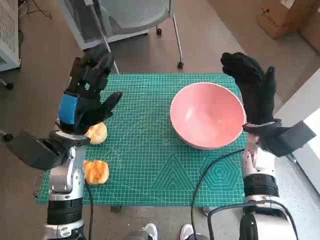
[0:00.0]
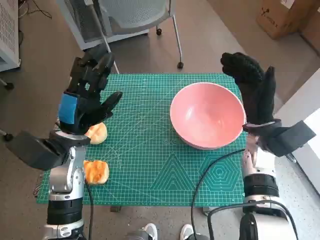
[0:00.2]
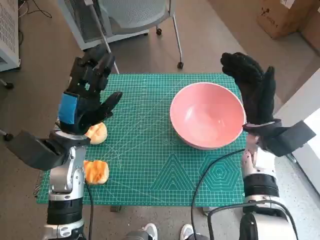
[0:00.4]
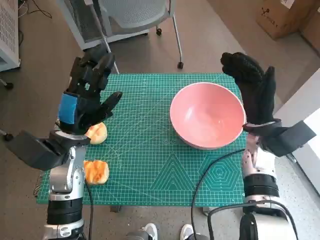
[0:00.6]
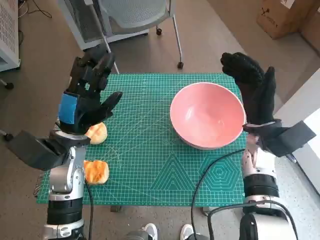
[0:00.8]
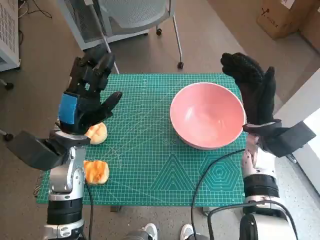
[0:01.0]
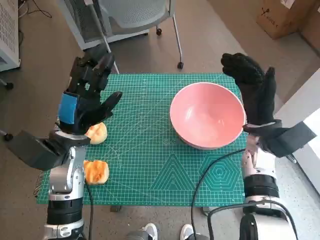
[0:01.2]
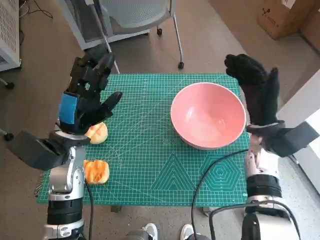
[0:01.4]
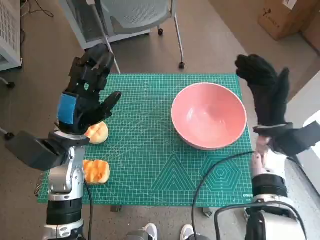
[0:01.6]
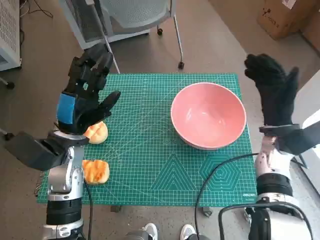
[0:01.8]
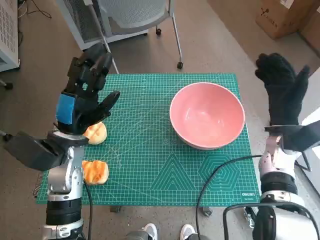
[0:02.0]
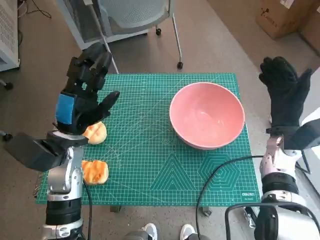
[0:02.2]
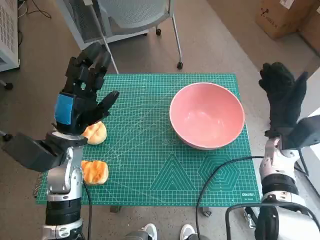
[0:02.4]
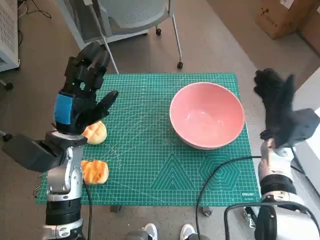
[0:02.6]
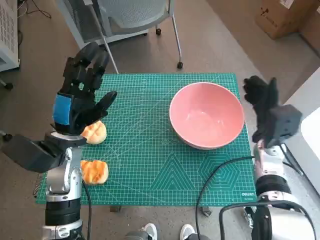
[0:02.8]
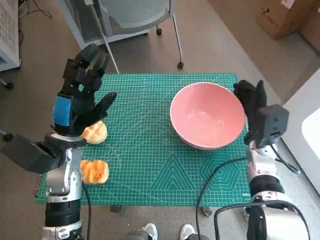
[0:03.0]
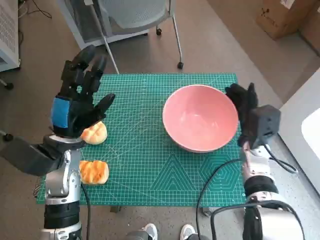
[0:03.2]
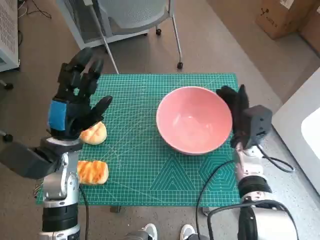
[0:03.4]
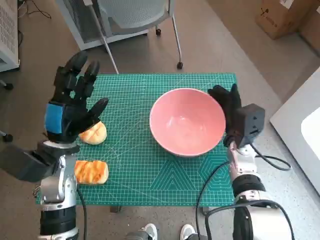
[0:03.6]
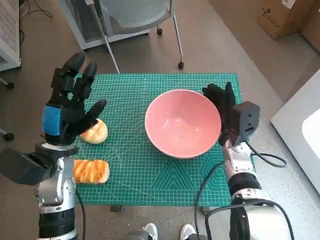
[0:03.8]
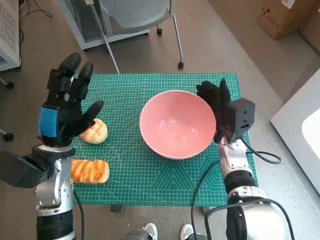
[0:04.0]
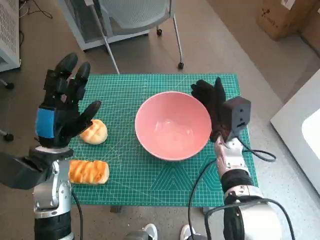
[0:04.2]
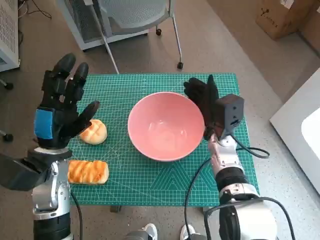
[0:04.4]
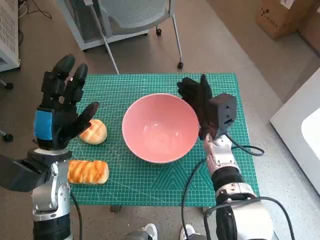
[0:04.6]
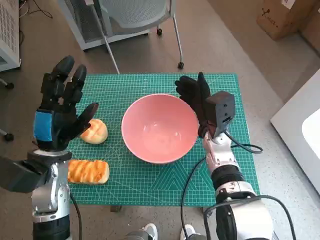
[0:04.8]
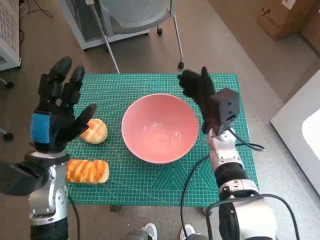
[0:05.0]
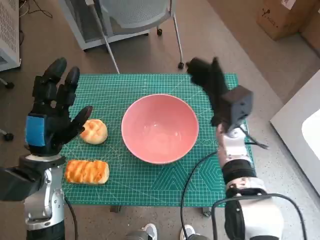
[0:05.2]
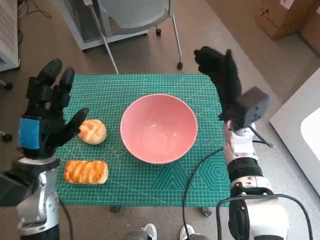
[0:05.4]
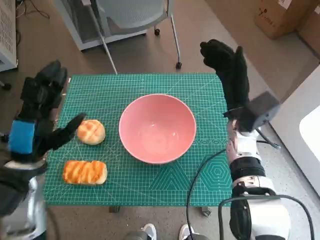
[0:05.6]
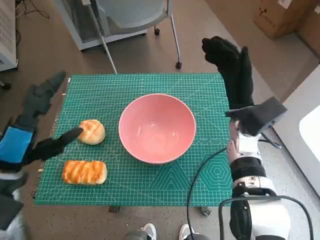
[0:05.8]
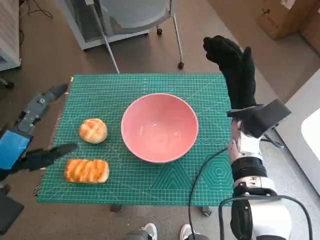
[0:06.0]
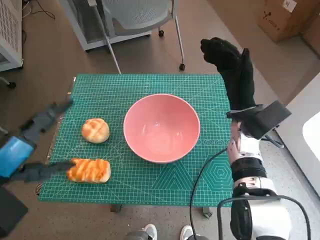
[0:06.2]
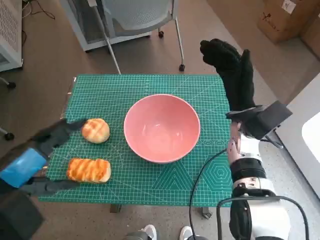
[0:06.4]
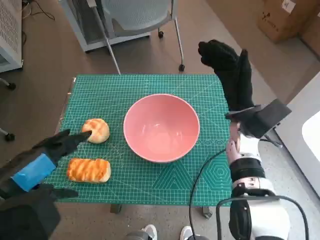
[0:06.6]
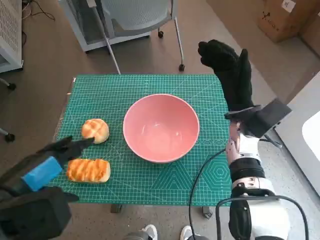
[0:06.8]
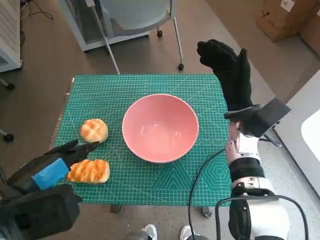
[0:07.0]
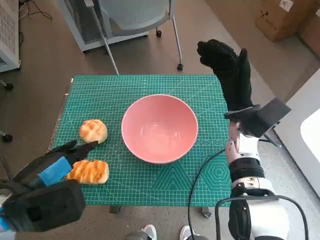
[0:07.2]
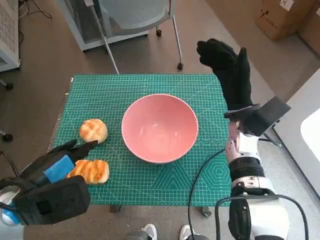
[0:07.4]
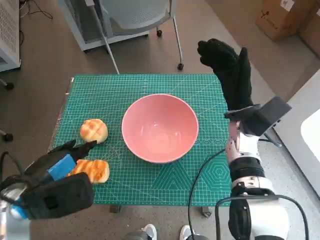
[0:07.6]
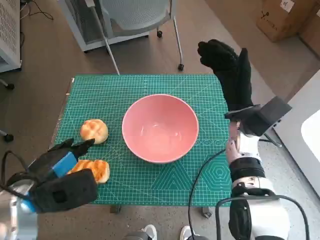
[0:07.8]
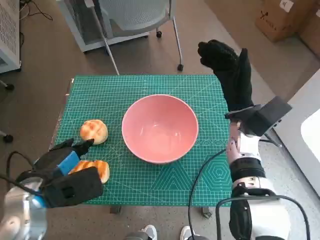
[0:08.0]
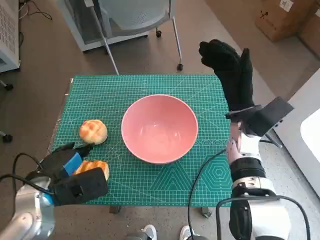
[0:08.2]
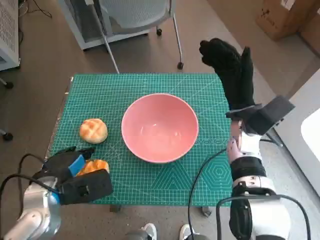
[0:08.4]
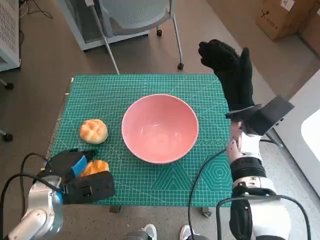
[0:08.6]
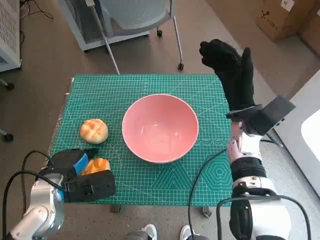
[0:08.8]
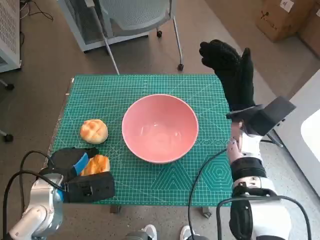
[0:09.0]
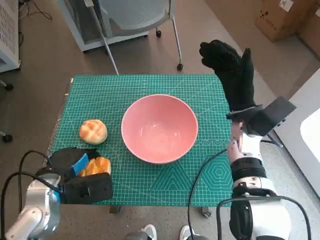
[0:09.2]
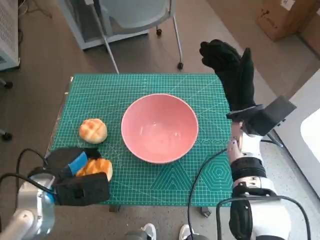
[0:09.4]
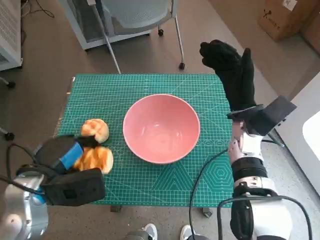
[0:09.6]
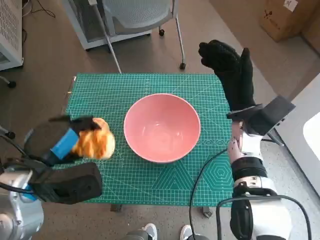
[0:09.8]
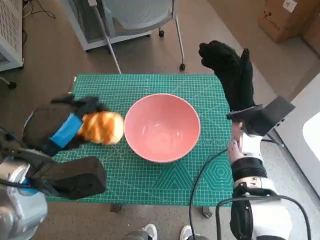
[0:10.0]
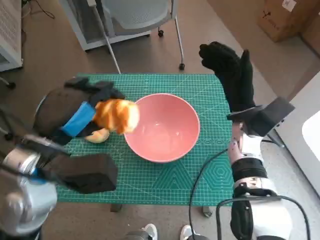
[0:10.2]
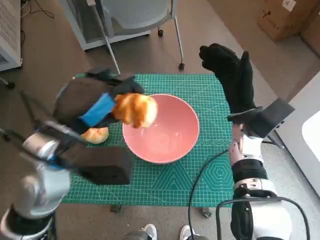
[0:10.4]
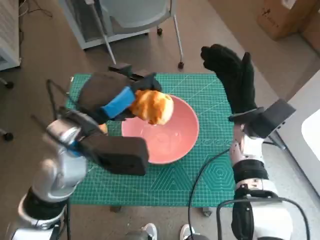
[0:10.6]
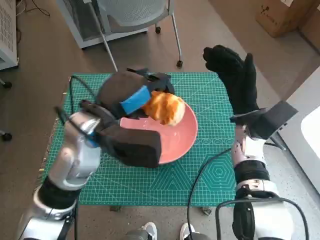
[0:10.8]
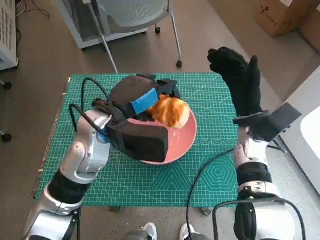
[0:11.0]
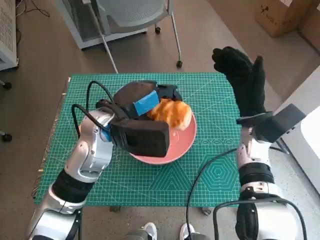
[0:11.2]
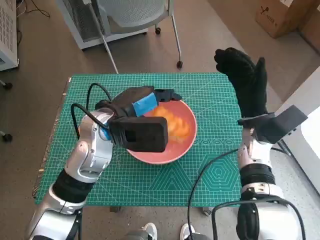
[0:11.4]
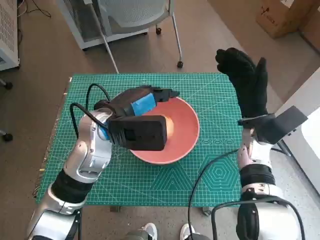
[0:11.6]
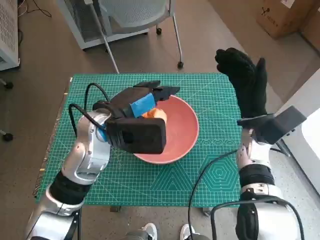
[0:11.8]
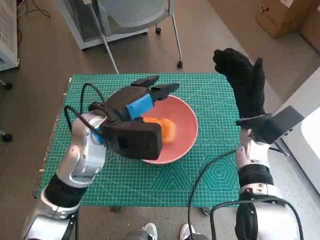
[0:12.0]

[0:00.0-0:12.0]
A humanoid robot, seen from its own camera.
Step, 0:00.0 to 0:04.8: Move the pink bowl to the center of table with right hand.
Step, 0:05.0 to 0:09.0: Grasp the long bread with left hand.
Step, 0:09.2 to 0:11.8: Place the long bread in pink bowl with left hand.
0:03.0 to 0:04.4: The right hand heads to the left, covering about 10 cm.
0:04.4 to 0:06.0: The left hand goes some 10 cm backward and upward; the right hand travels upward by about 5 cm.
0:07.6 to 0:09.0: The left hand heads downward, covering some 5 cm.
0:09.0 to 0:10.4: The left hand shifts some 15 cm upward and to the right.
0:10.4 to 0:12.0: The left hand moves forward, approximately 5 cm.

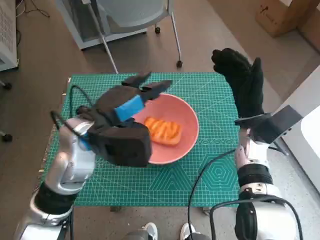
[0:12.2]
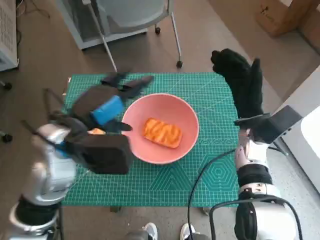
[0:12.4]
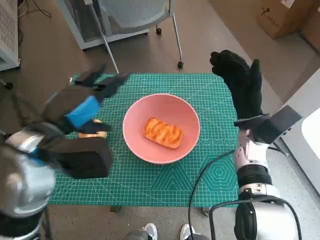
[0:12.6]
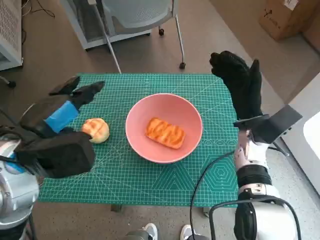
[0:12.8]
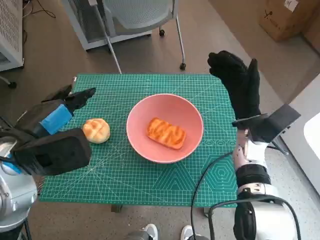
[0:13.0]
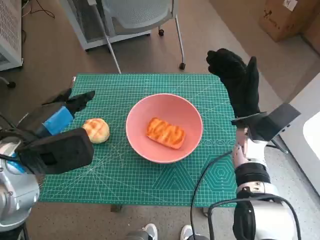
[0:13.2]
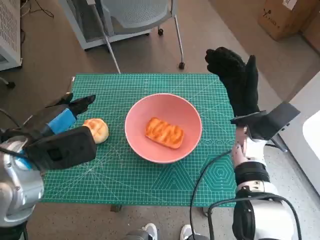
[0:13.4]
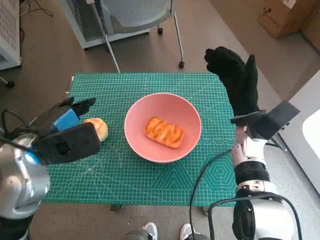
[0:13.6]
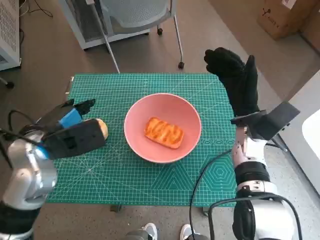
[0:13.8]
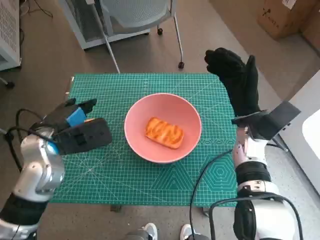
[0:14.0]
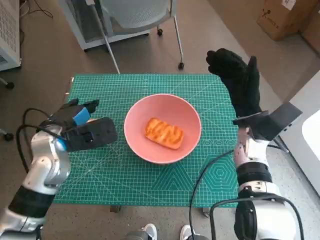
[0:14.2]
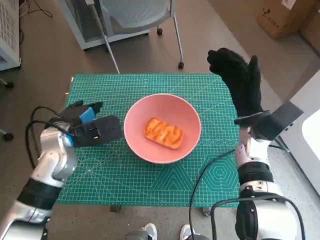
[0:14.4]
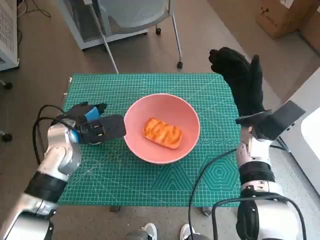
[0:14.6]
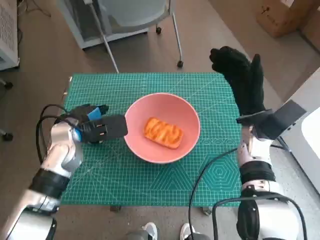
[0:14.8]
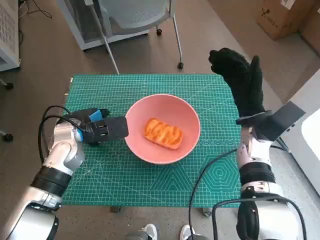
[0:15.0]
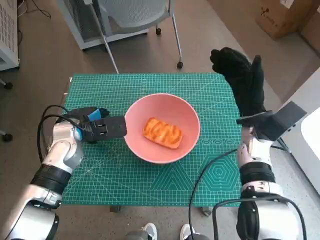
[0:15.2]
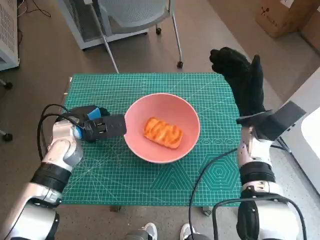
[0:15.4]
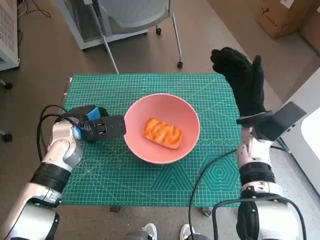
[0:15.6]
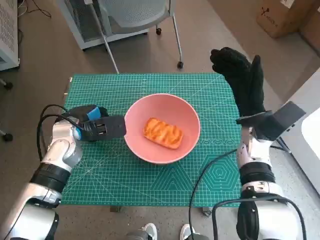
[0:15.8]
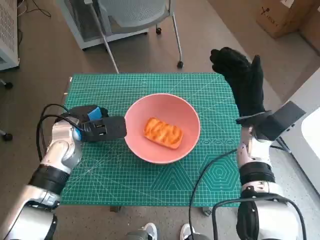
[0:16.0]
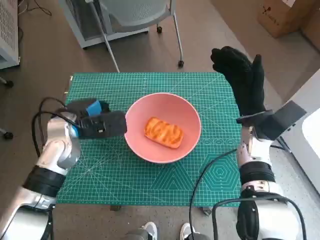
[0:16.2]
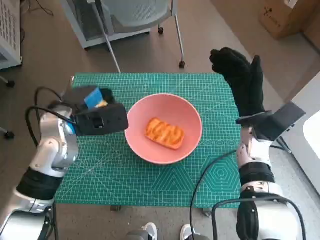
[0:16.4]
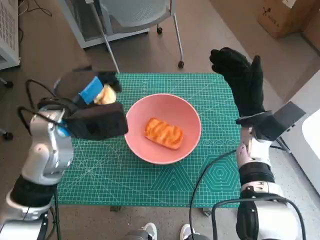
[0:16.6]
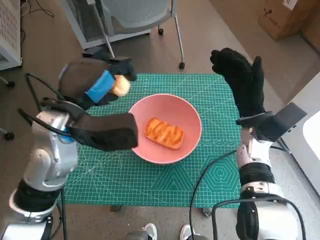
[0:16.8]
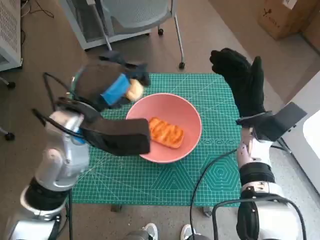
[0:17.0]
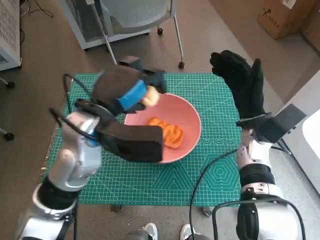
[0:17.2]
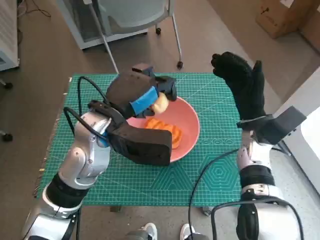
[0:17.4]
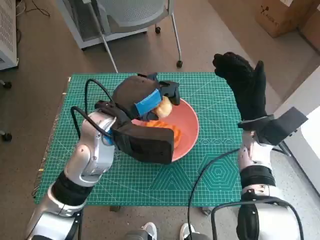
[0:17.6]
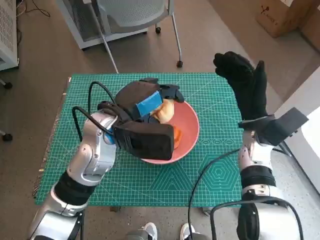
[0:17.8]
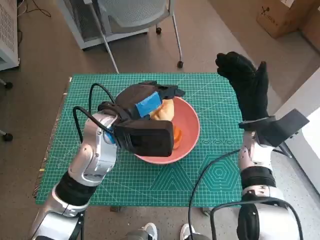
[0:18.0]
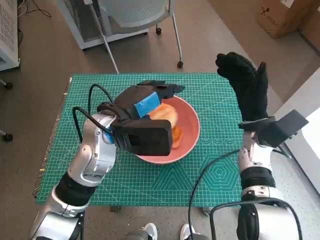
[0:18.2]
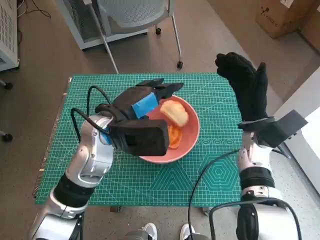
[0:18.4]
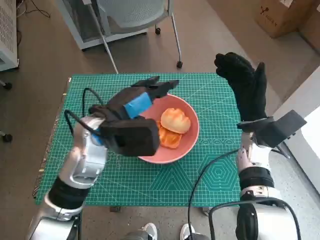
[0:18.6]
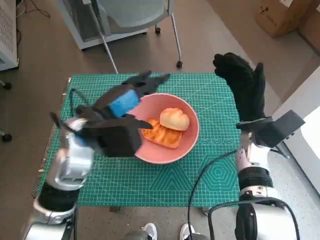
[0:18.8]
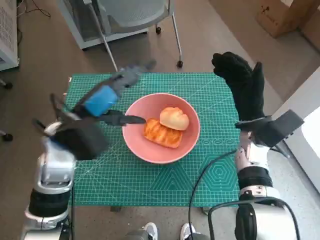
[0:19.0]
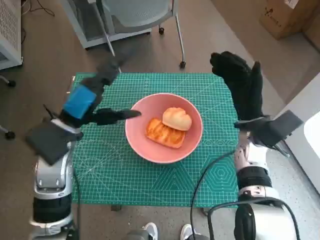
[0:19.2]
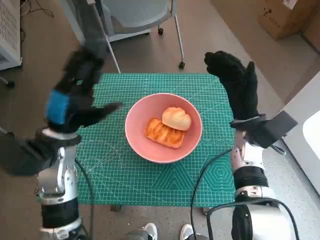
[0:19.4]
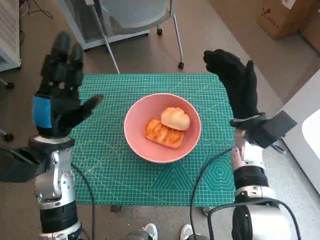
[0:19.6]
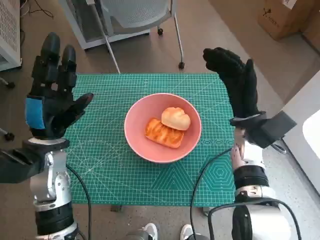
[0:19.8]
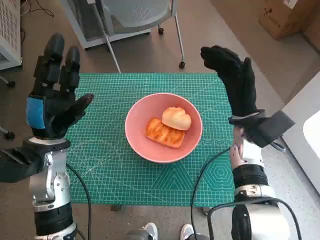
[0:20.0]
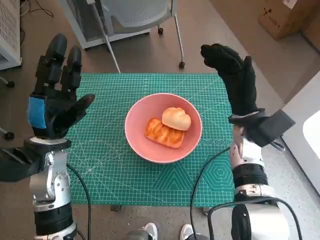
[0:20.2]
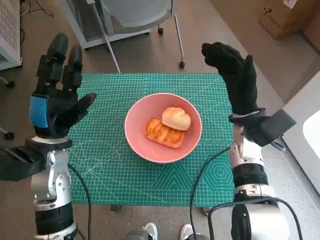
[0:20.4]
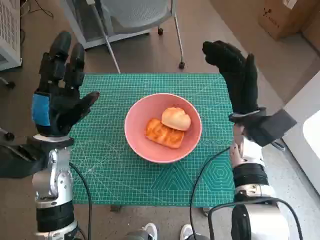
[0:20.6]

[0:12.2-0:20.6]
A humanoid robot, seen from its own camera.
Step, 0:12.2 to 0:15.0: Grasp the round bread with left hand.
Step, 0:15.2 to 0:18.4: Place the round bread in pink bowl with left hand.
0:12.2 to 0:13.6: The left hand shifts about 10 cm to the left.
0:13.6 to 0:15.0: The left hand travels forward and downward by about 10 cm.
0:15.0 to 0:16.4: The left hand goes roughly 5 cm upward.
0:16.4 to 0:17.8: The left hand goes roughly 10 cm to the right.
0:17.8 to 0:19.2: The left hand moves to the left, roughly 10 cm.

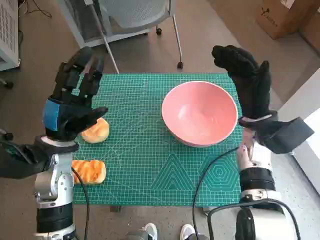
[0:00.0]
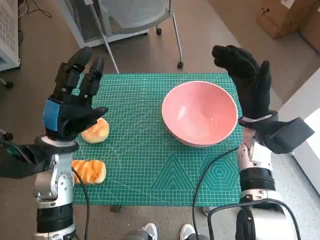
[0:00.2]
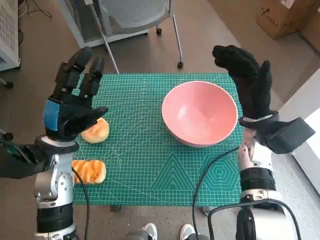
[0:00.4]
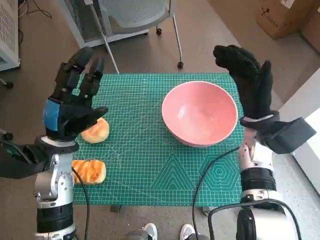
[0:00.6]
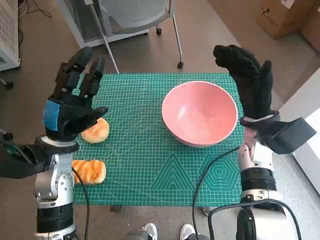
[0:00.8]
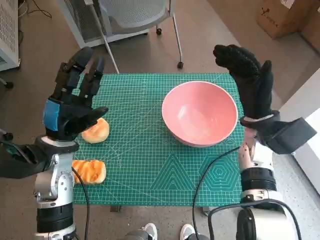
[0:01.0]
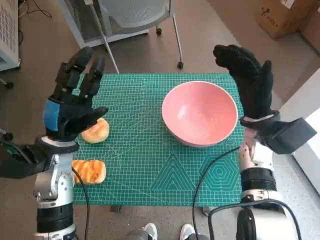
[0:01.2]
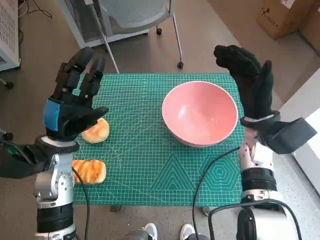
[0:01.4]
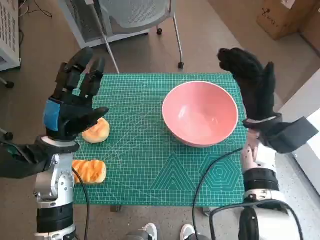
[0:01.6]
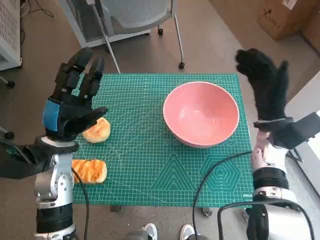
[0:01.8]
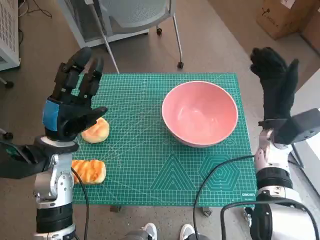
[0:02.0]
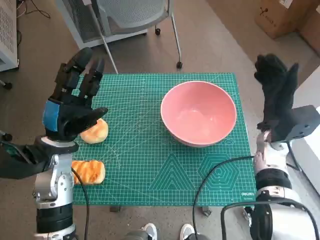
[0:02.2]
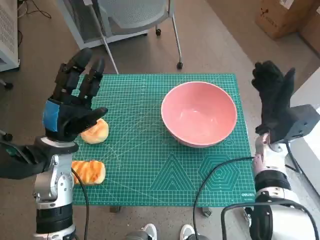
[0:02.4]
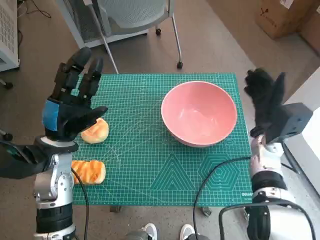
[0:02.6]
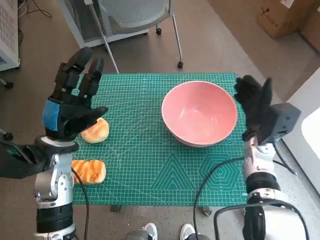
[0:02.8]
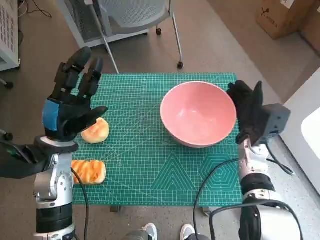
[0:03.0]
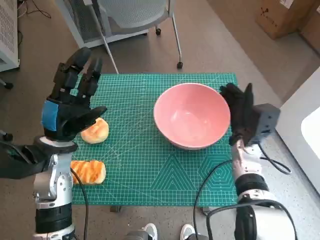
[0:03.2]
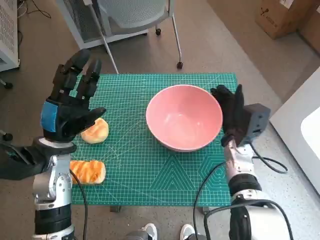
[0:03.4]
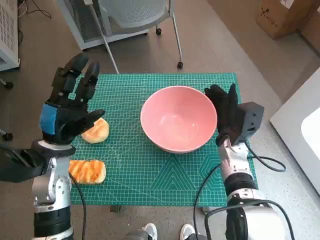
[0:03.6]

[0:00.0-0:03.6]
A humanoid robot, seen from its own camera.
0:01.8 to 0:03.6: The right hand travels downward and to the left by some 10 cm.
